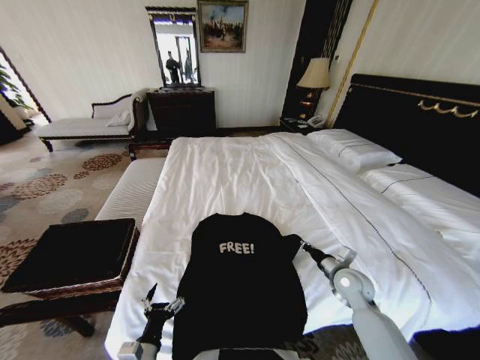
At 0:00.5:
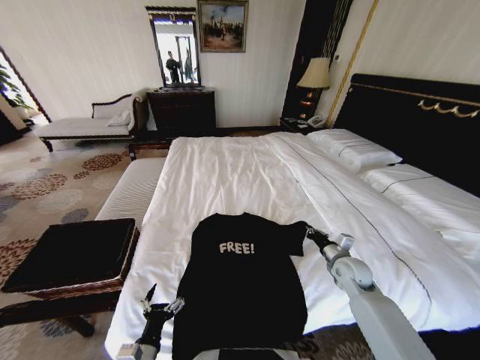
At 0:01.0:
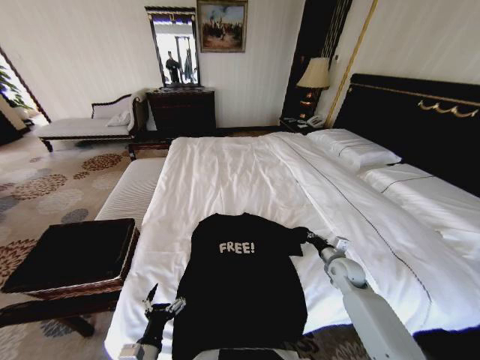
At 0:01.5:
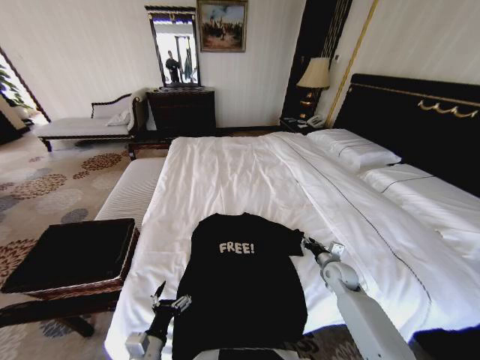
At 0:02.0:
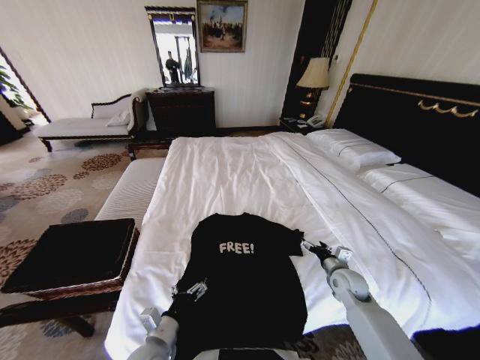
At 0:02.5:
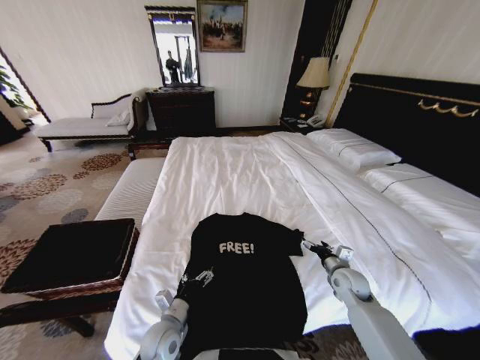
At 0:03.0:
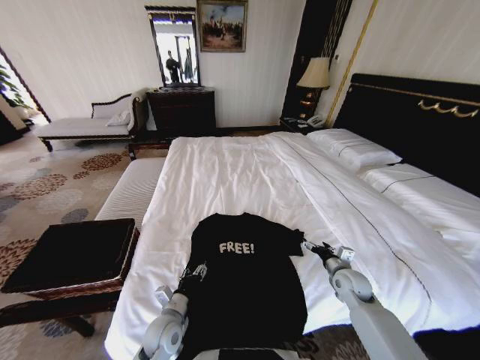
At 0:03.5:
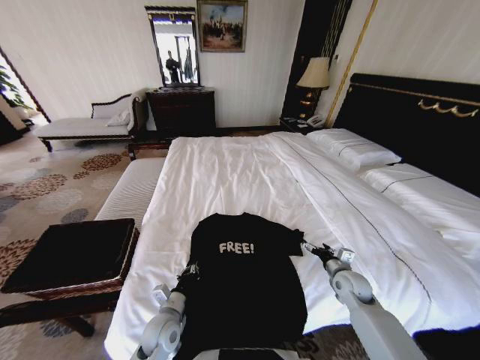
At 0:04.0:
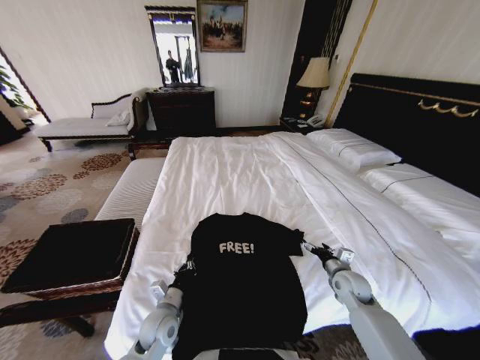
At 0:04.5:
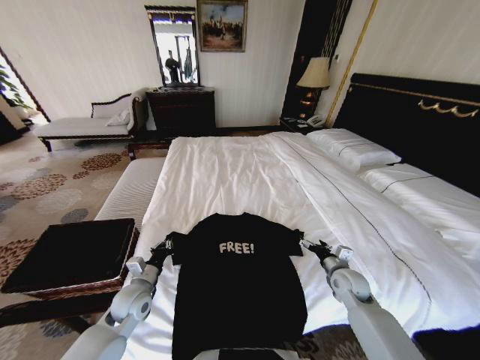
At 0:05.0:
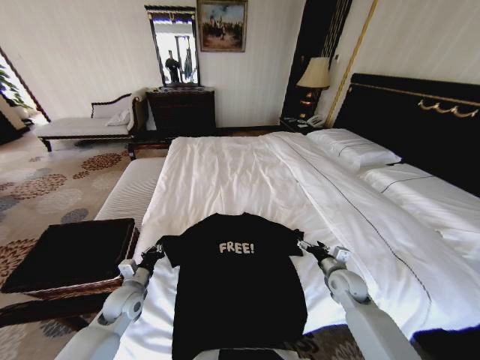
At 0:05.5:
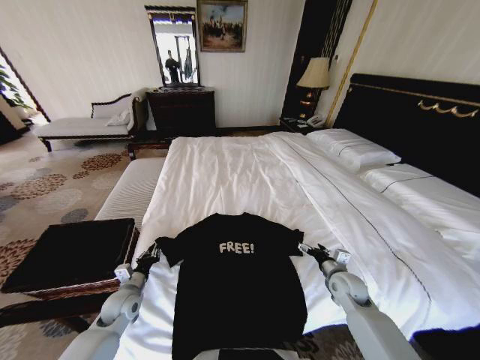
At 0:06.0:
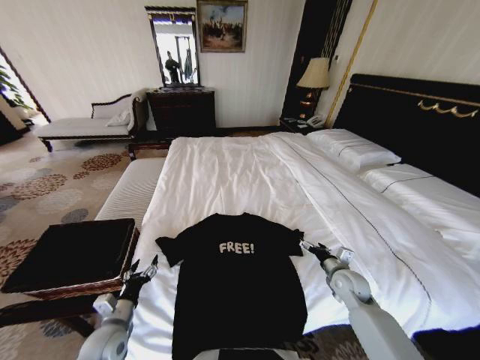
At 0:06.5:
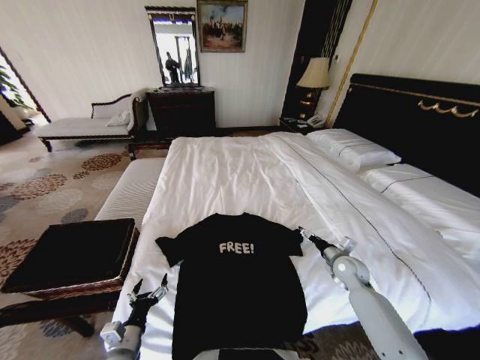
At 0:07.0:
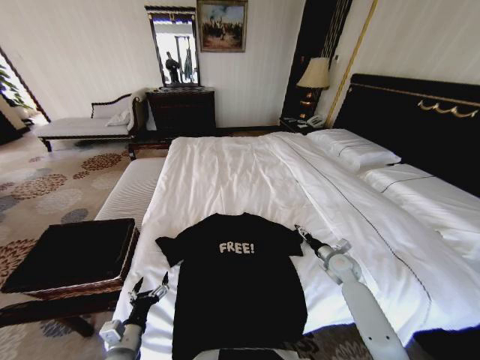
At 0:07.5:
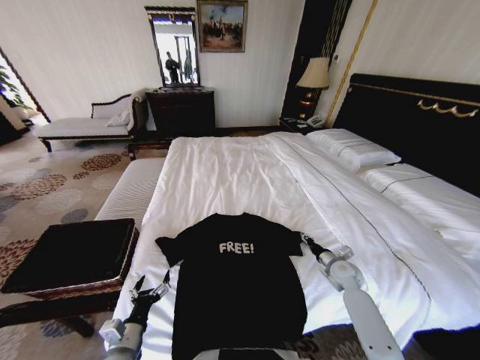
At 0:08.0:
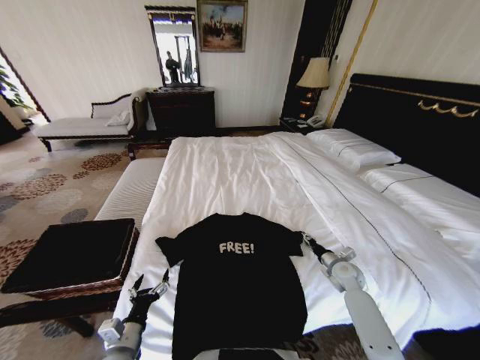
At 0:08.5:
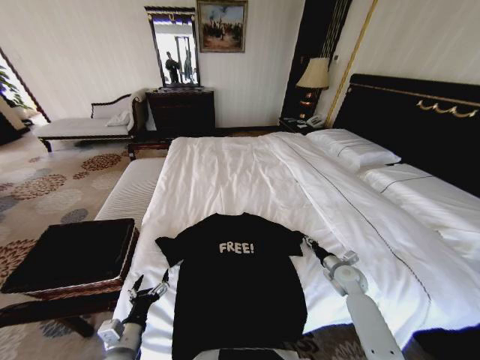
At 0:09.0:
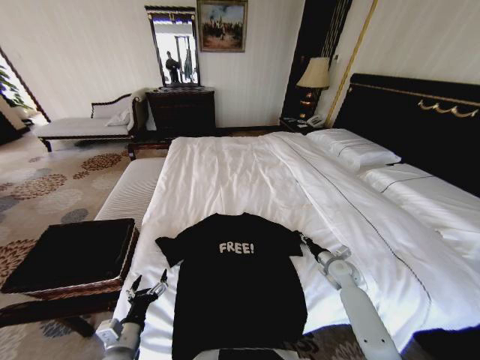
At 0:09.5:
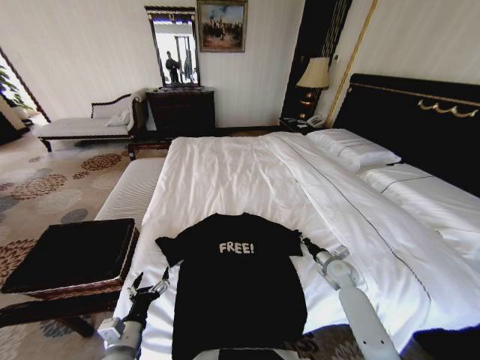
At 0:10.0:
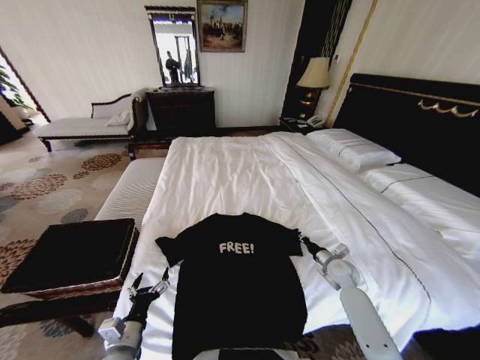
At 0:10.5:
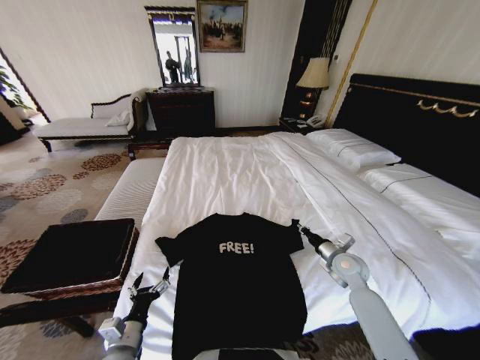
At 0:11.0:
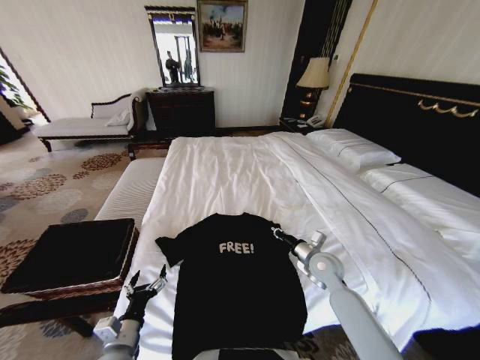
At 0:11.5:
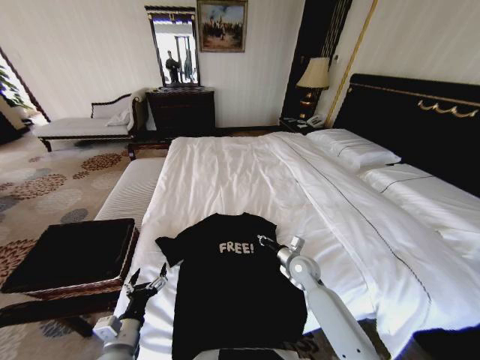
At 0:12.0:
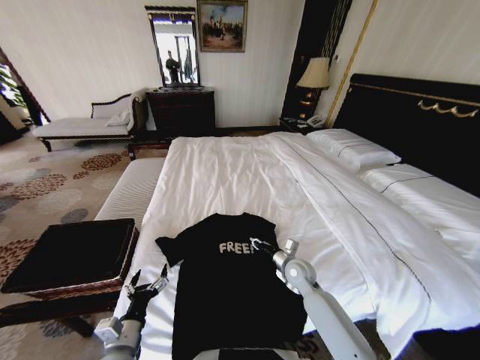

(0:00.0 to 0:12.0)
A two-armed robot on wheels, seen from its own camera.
Task of the whole recording: Fold the clothes on the bed and place them into the basket.
0:00.0 - 0:02.0: The left gripper travels forward by some 5 cm, while the right gripper opens.
0:02.0 - 0:04.0: The left gripper shifts some 10 cm forward, and closes its fingers.
0:04.0 - 0:06.0: The left gripper moves to the left, about 15 cm, and opens.
0:06.0 - 0:08.0: The right gripper moves roughly 5 cm, and closes up, while the left gripper is displaced backward and to the right by roughly 10 cm.
0:08.0 - 0:10.0: The right gripper closes.
0:10.0 - 0:12.0: The right gripper travels to the left by approximately 15 cm.

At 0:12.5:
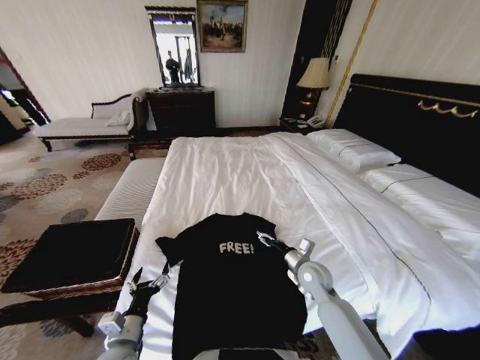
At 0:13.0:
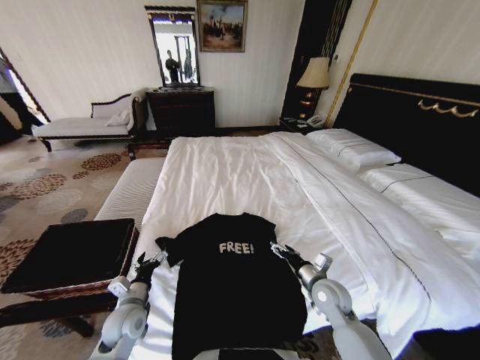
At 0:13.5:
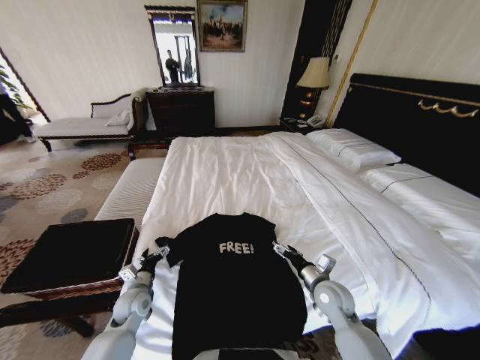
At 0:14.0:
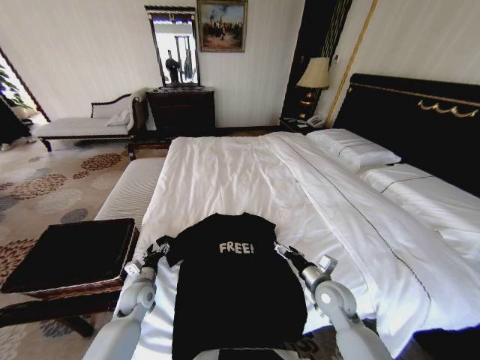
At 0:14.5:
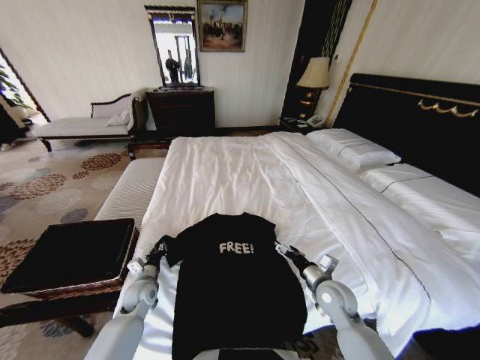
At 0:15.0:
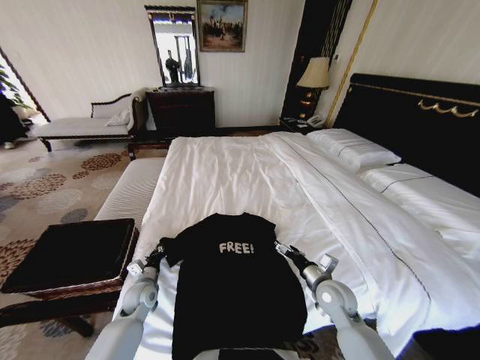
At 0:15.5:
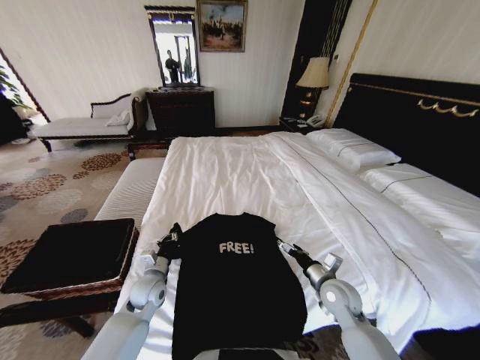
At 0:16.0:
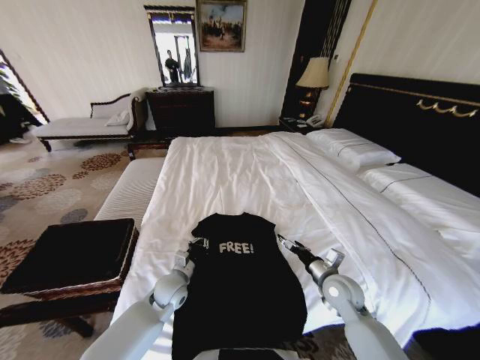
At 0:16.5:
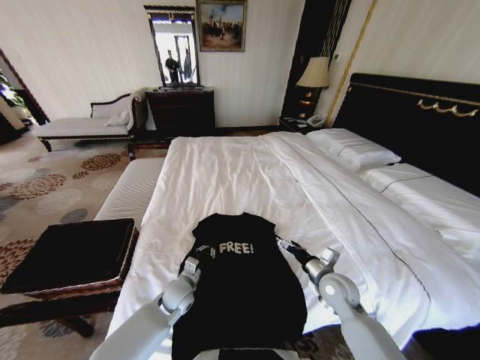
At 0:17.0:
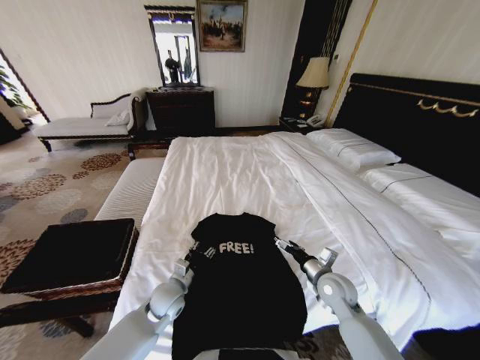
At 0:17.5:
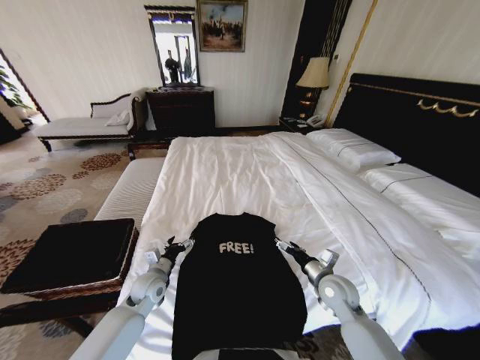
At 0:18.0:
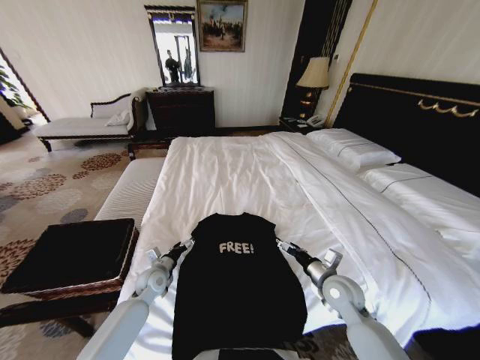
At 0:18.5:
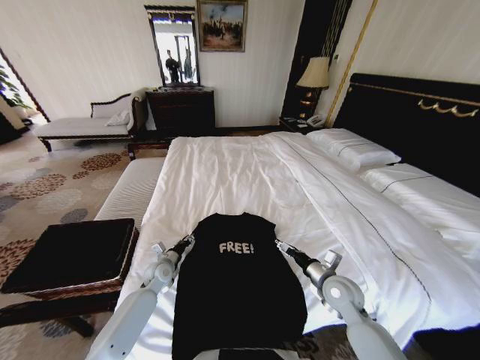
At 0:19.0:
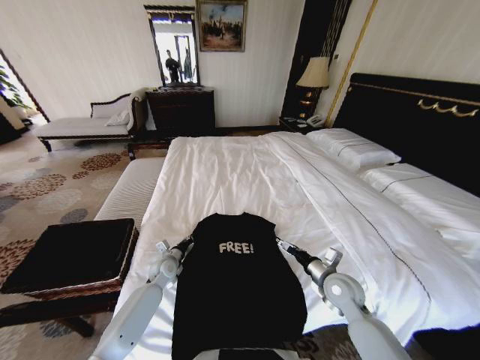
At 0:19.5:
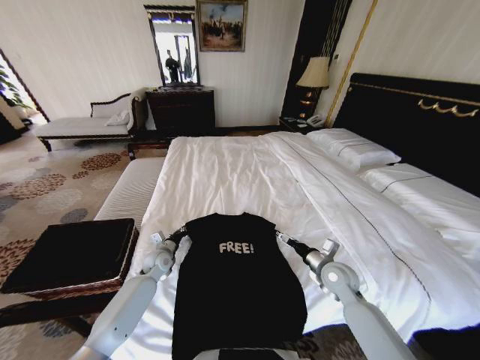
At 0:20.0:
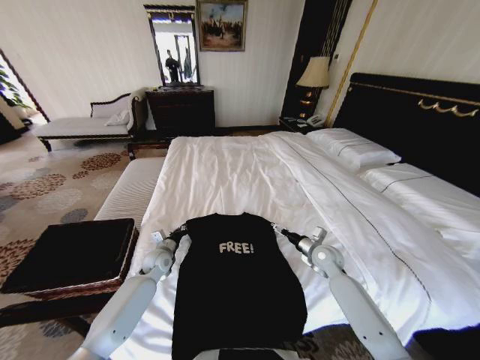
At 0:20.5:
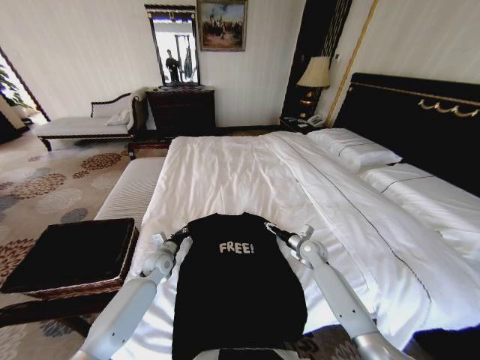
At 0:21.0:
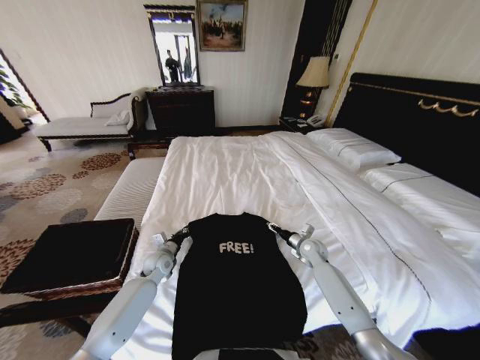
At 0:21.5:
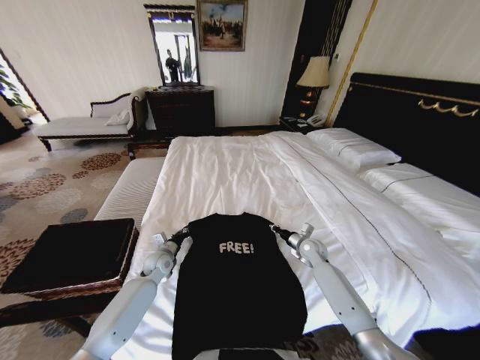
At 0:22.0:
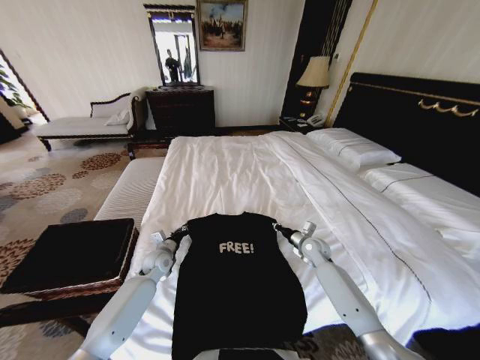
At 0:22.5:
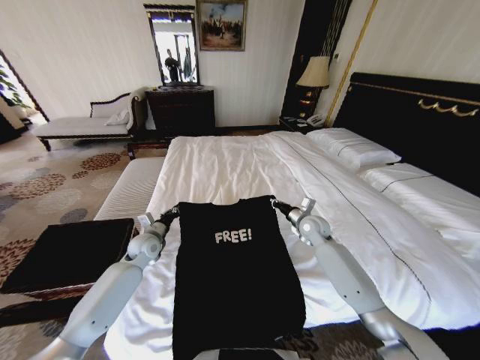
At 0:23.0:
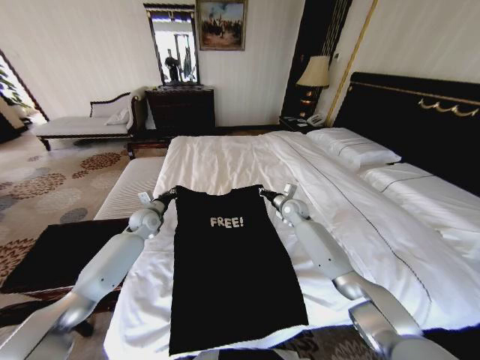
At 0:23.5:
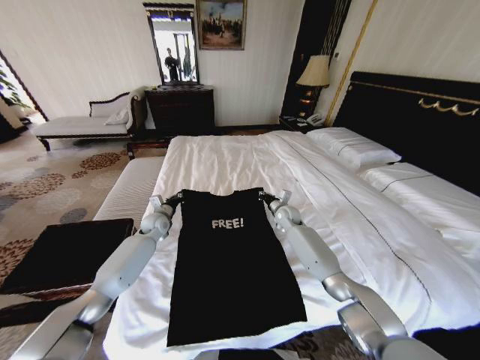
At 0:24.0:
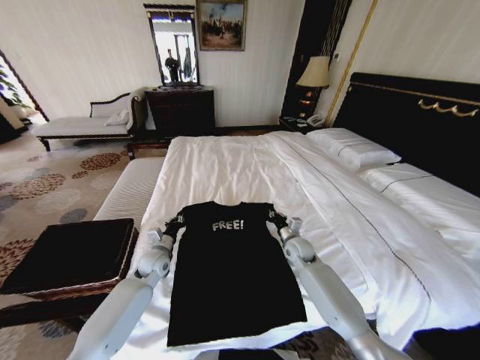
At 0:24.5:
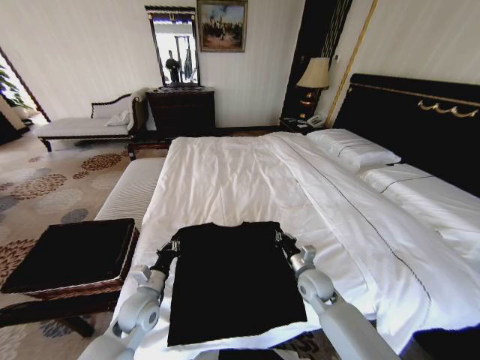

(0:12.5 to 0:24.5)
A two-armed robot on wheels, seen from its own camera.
Task of the whole recording: Fold the clothes on the bed and place them into the basket.
0:12.5 - 0:14.5: The left gripper moves forward, some 15 cm, and closes. Meanwhile the right gripper heads backward, covering approximately 5 cm.
0:14.5 - 0:16.5: The left gripper heads to the right, covering some 15 cm.
0:16.5 - 0:18.5: The left gripper shifts some 10 cm to the left and forward, and opens up.
0:18.5 - 0:20.5: The left gripper closes its fingers, while the right gripper goes some 15 cm forward.
0:20.5 - 0:22.5: Both grippers move upward, about 10 cm. The right gripper closes its fingers.
0:22.5 - 0:24.5: The left gripper is displaced backward by some 15 cm, while the right gripper moves backward and downward, about 20 cm.

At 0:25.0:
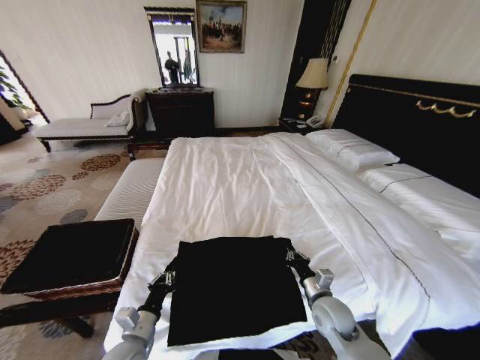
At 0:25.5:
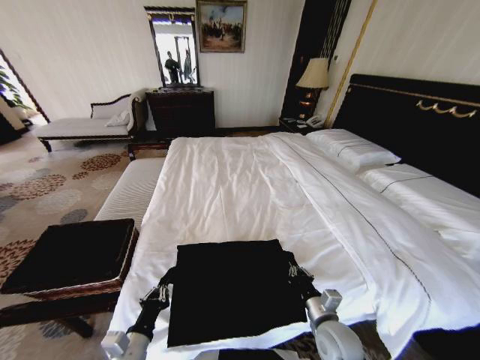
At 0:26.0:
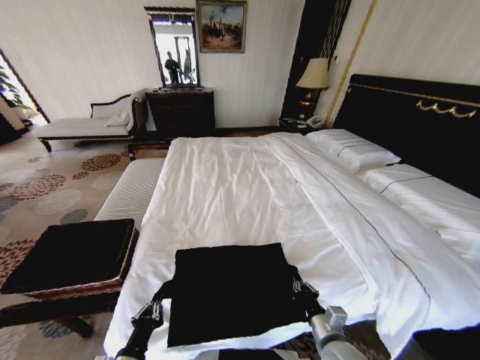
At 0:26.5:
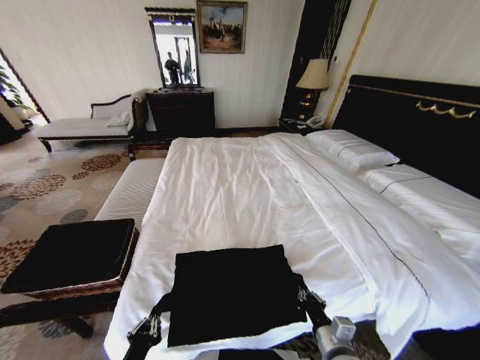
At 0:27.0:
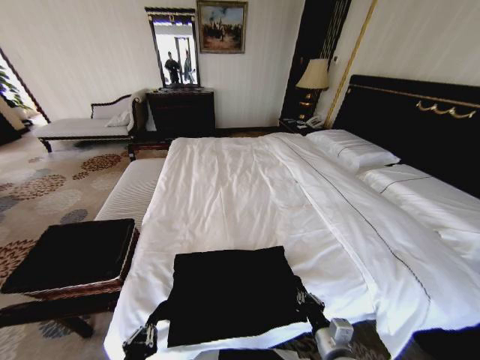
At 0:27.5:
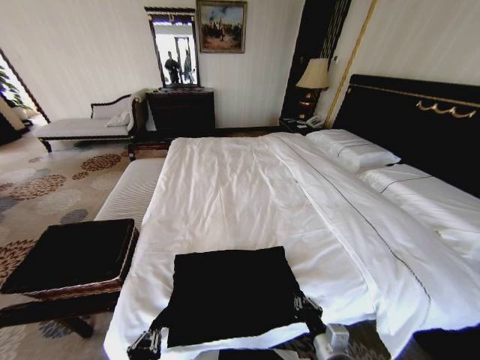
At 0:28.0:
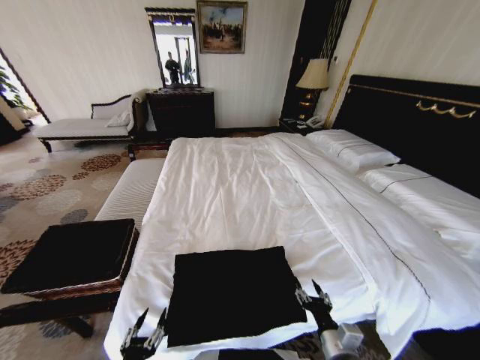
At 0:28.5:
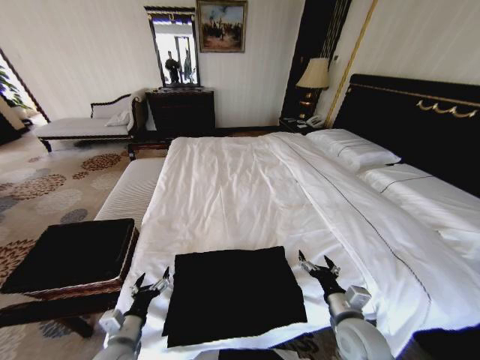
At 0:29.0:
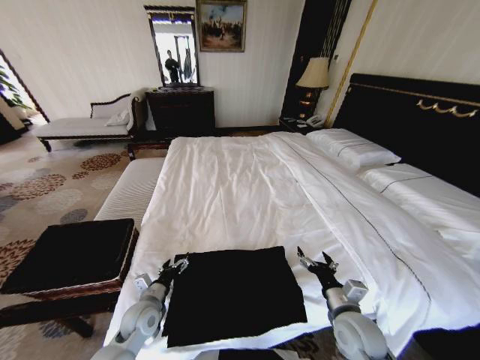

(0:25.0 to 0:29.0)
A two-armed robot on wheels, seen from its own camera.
Task of the whole recording: Fold the clothes on the bed and place them into the basket.
0:25.0 - 0:27.0: Both grippers move backward, about 15 cm.
0:27.0 - 0:29.0: The left gripper moves forward, some 25 cm, and opens up; the right gripper shifts approximately 10 cm forward, and opens up.
